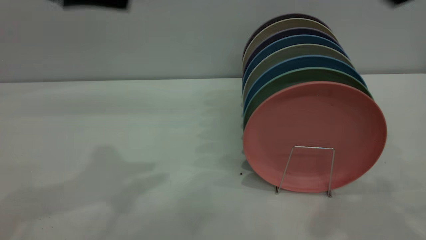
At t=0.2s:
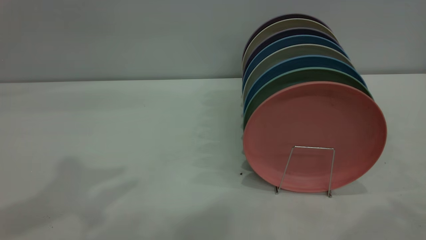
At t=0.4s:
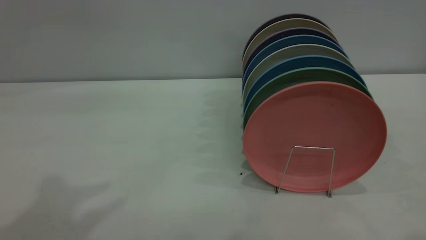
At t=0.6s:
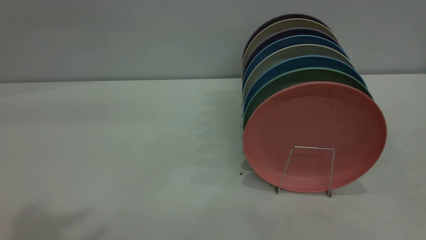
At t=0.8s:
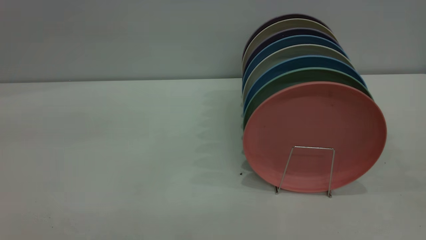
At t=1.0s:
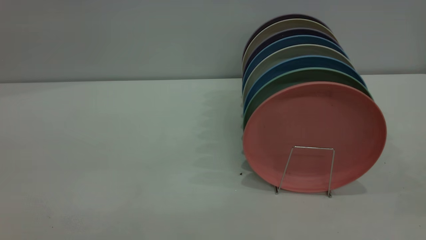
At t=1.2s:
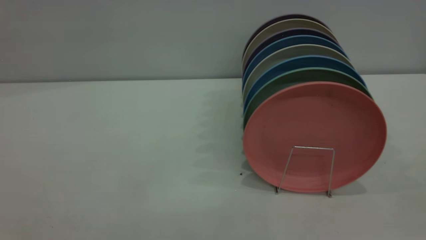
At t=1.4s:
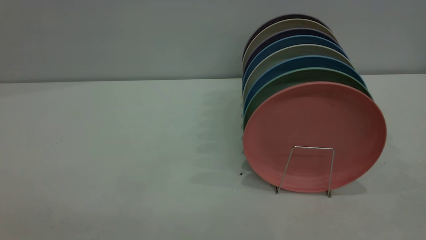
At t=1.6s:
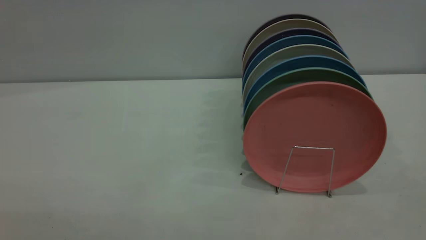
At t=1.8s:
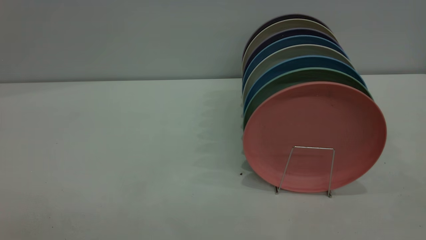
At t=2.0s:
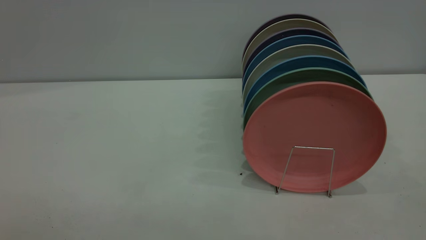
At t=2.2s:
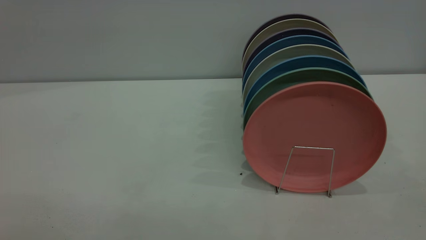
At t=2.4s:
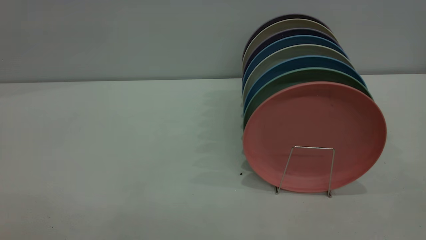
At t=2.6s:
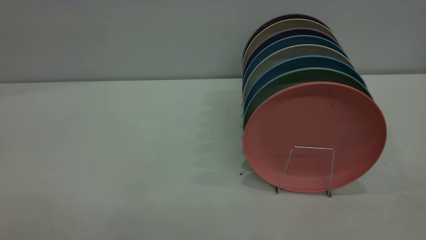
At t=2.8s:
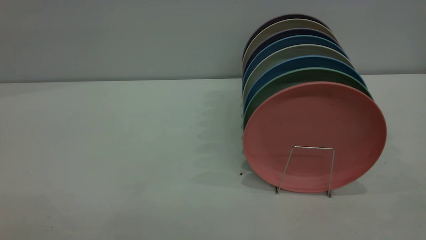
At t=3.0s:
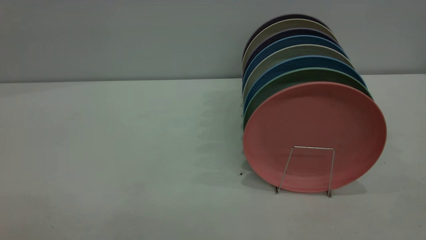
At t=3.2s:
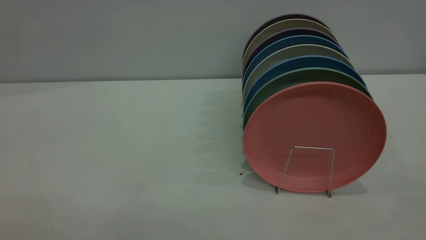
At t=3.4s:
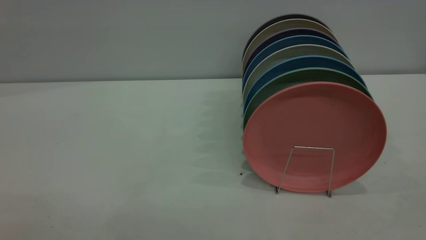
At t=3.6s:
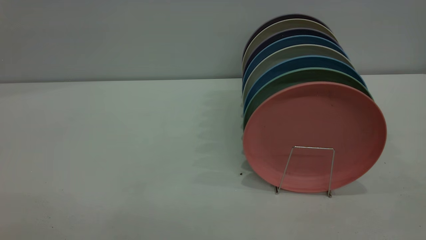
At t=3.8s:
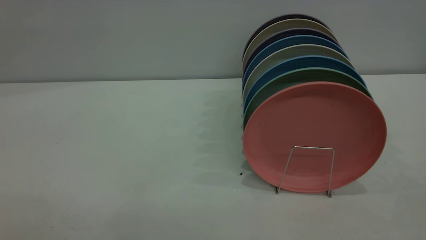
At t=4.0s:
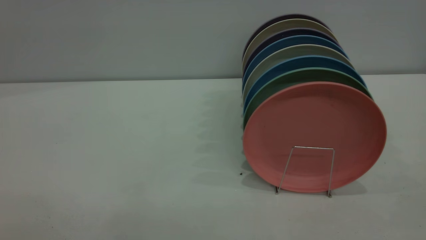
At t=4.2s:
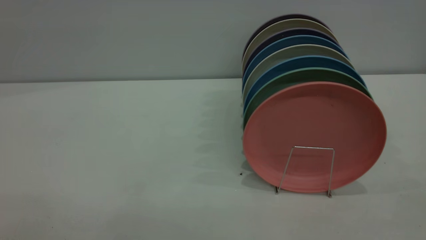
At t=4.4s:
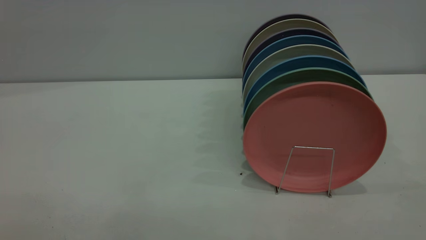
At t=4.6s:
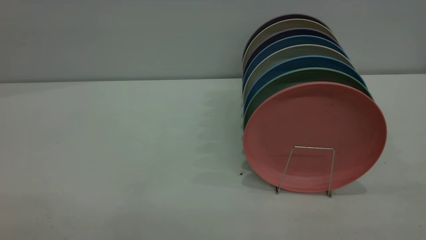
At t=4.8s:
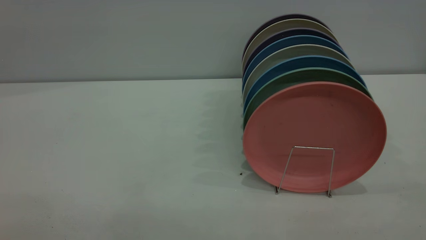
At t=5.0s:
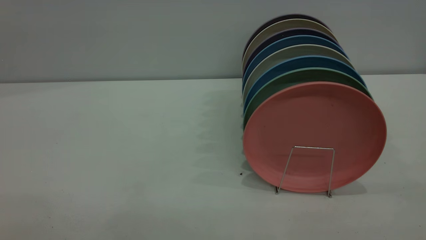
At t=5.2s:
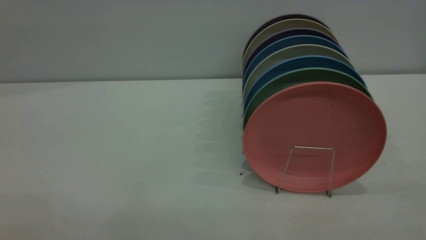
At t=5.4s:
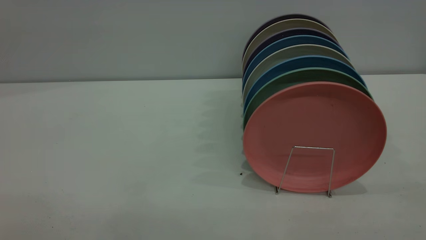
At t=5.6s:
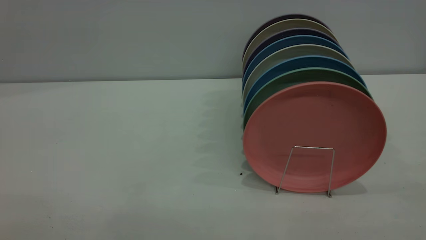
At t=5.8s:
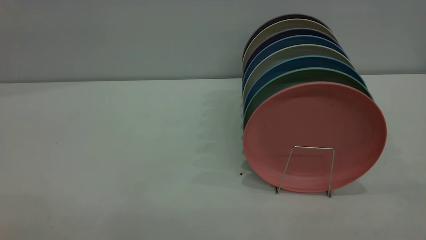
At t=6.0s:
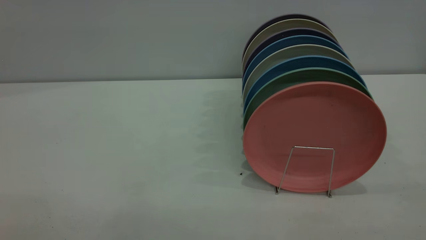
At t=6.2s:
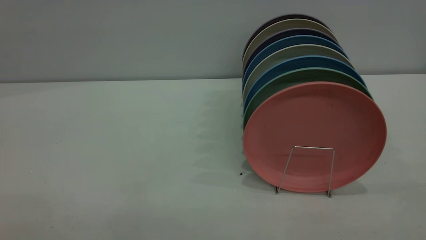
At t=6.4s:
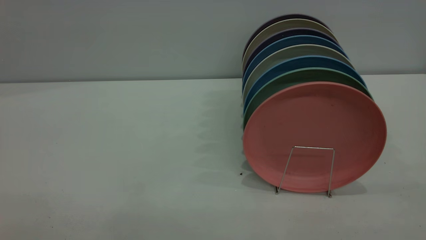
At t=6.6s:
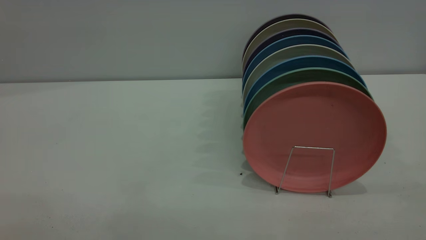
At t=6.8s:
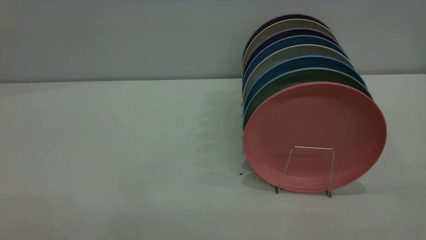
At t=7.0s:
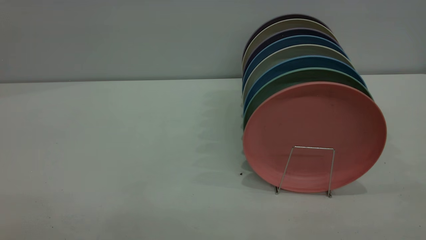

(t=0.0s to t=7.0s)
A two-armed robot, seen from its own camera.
Task of the whole recording: put the plate on the plate rack.
t=5.6s - t=7.0s: Both grippers stay put.
